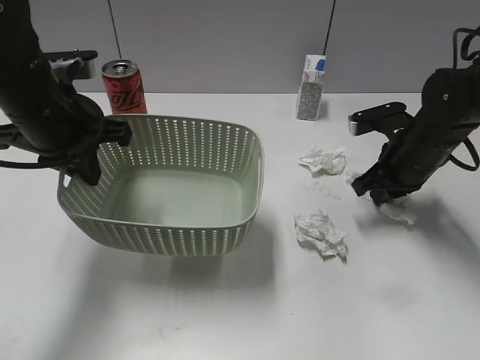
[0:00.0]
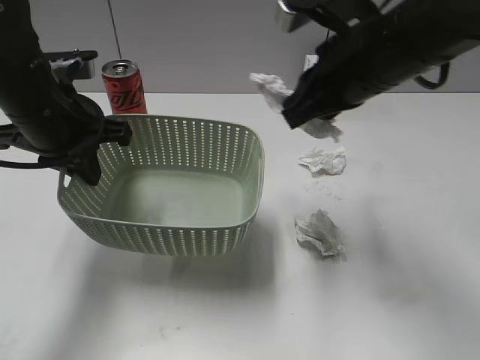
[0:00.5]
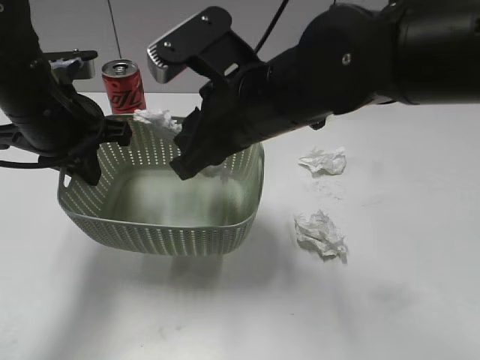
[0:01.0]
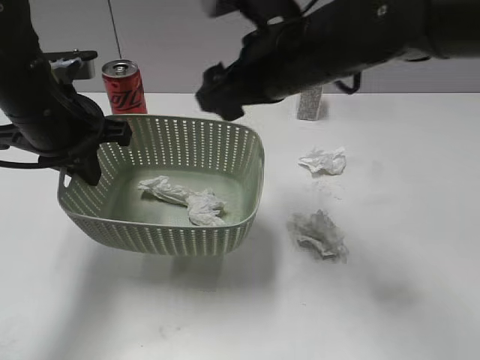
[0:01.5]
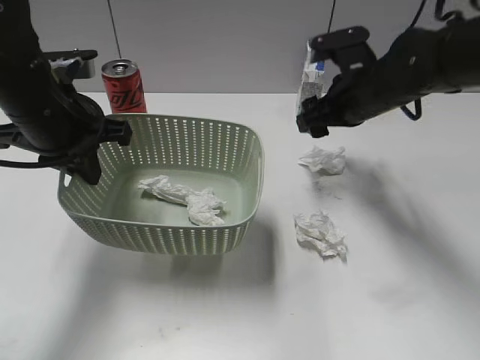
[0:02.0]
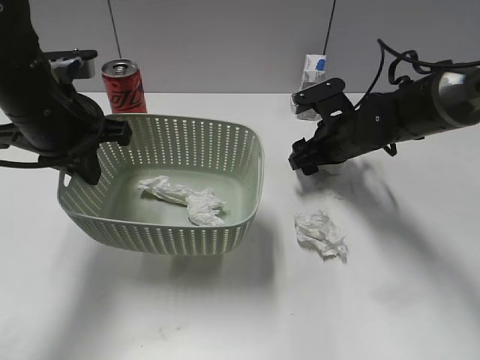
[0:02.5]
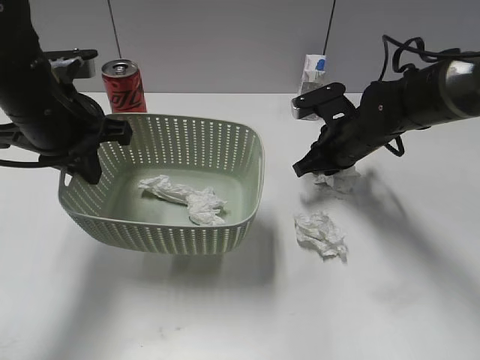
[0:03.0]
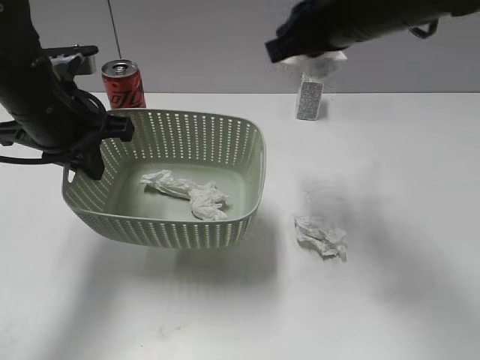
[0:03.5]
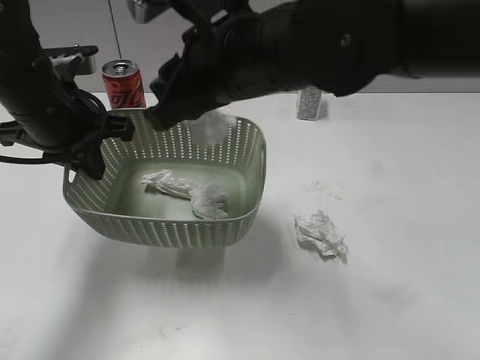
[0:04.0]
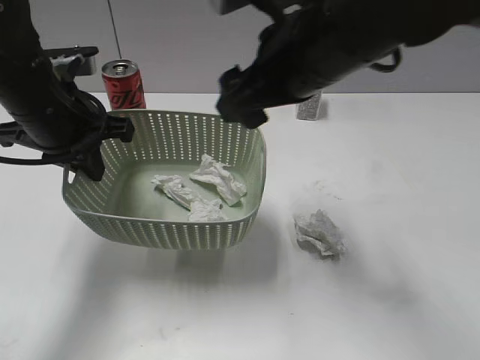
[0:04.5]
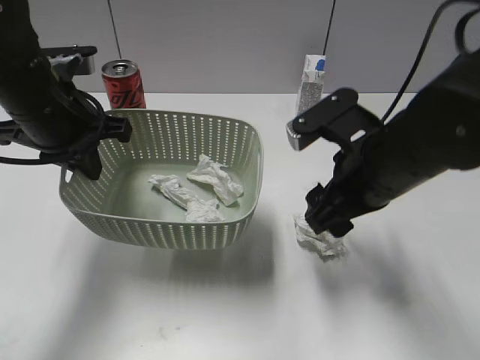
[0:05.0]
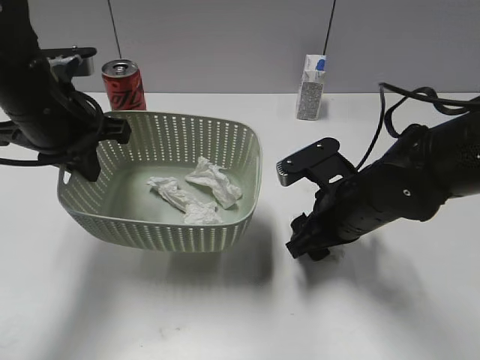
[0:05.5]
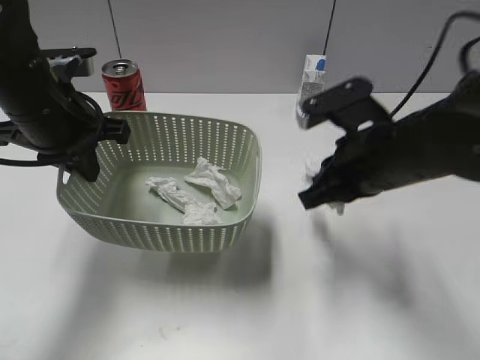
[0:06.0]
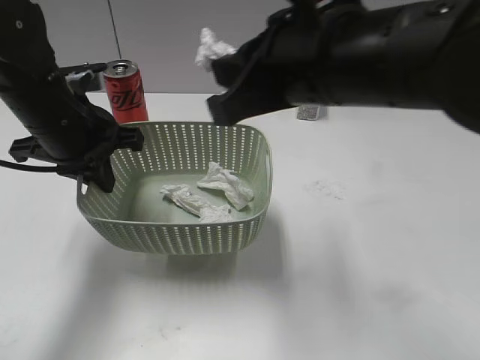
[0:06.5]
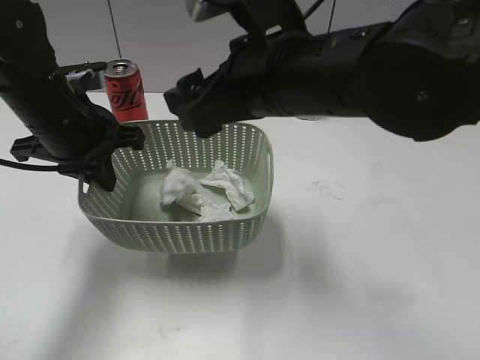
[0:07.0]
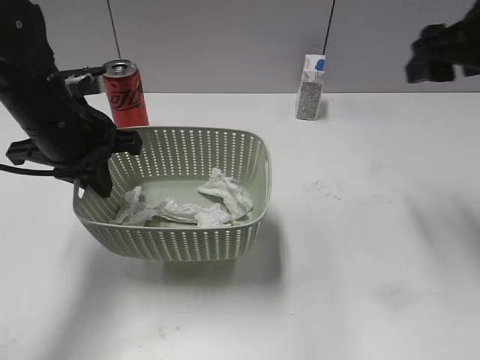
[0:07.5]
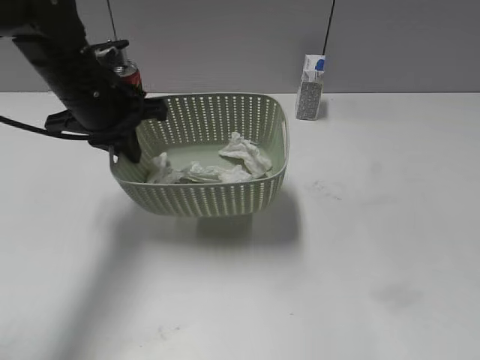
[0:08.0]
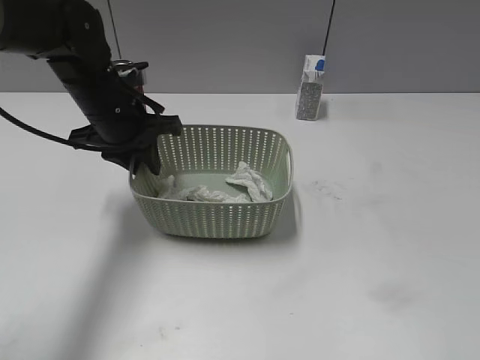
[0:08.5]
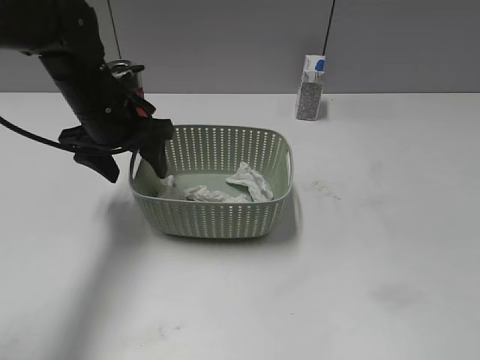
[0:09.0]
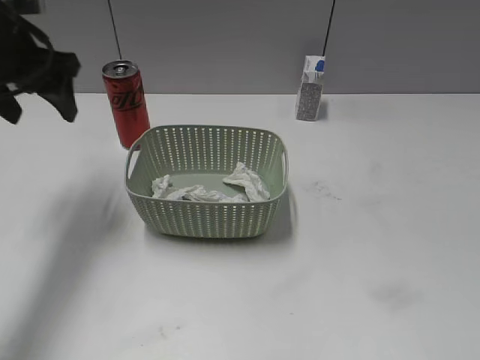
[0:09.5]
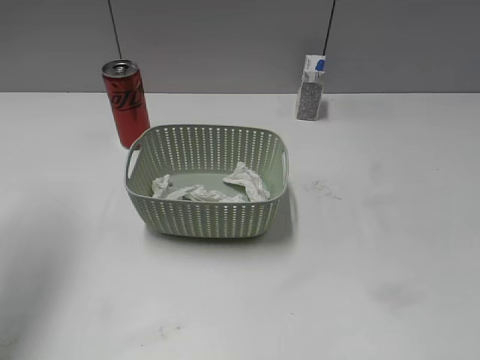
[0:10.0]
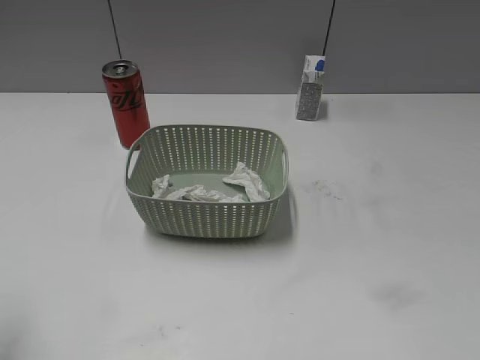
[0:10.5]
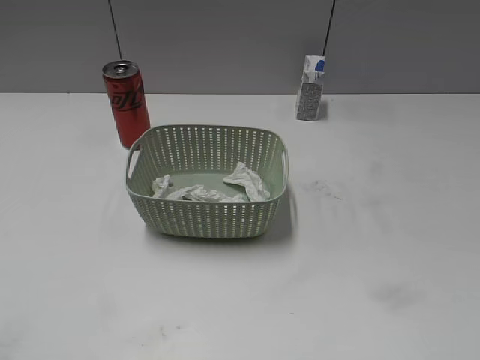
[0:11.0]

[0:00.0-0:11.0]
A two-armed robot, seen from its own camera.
Step, 0:00.0 to 0:01.0: Place the waste paper in the basket with right gripper.
Step, 0:01.5 to 0:03.0: Grasp the waste paper with right gripper.
Step, 0:03.5 to 0:04.0: Place the waste paper in the basket with right gripper.
Step, 0:04.5 to 0:05.5: Grasp the waste paper with right gripper.
Step, 0:06.0 to 0:07.0: Place the waste paper in the basket with right gripper.
Step, 0:07.5 to 0:08.5: Place the basket on the table with left gripper.
0:00.0 to 0:02.0: The right gripper travels to the left and back again, roughly 20 cm each way, and opens.
0:02.0 to 0:03.5: The right gripper heads upward and backward, covering about 15 cm, and closes.
0:03.5 to 0:05.5: The right gripper moves downward, roughly 20 cm, and opens.
0:05.5 to 0:07.5: The right gripper is displaced upward and to the right by about 25 cm, and closes, then opens again.
0:07.5 to 0:09.0: The right gripper goes approximately 30 cm backward; the left gripper goes approximately 5 cm forward, and opens its fingers.
0:09.0 to 0:11.0: The left gripper moves backward and to the left, some 35 cm.

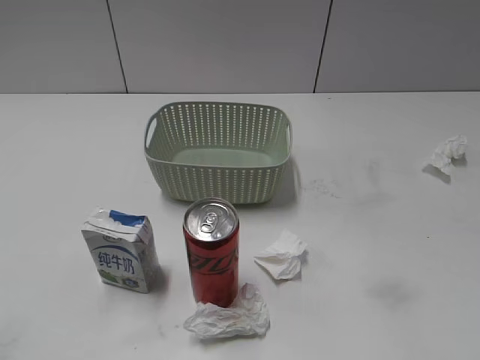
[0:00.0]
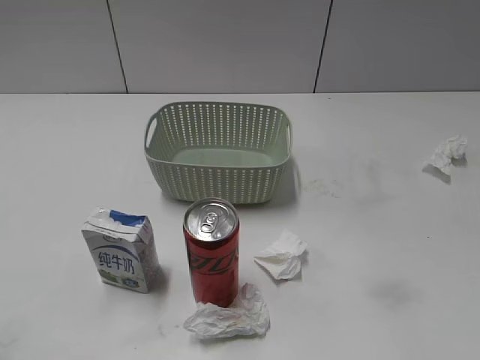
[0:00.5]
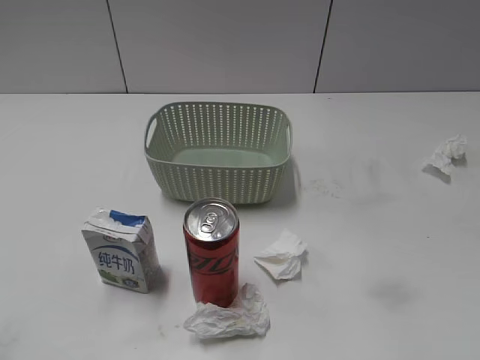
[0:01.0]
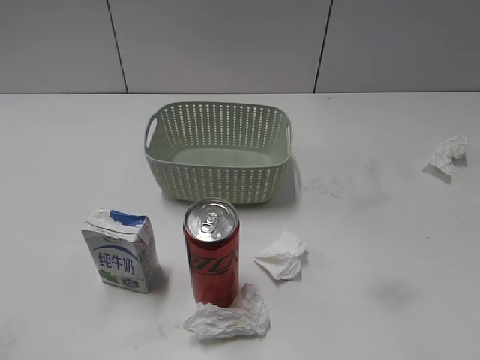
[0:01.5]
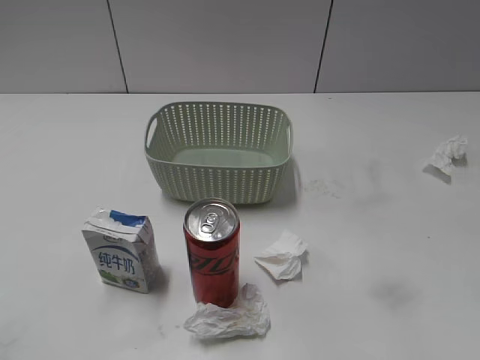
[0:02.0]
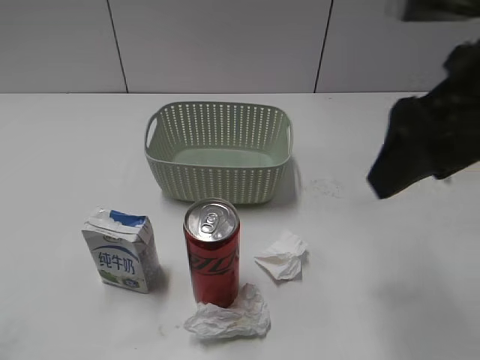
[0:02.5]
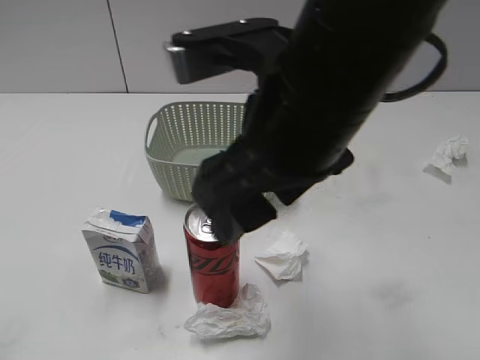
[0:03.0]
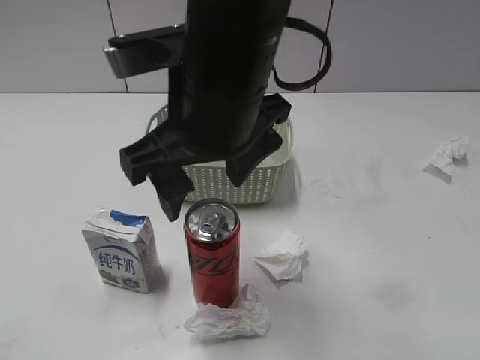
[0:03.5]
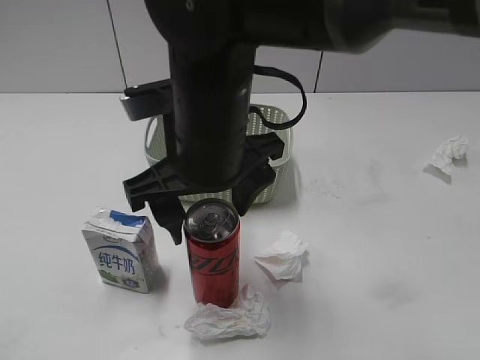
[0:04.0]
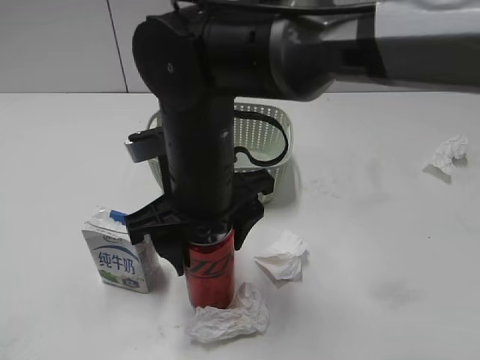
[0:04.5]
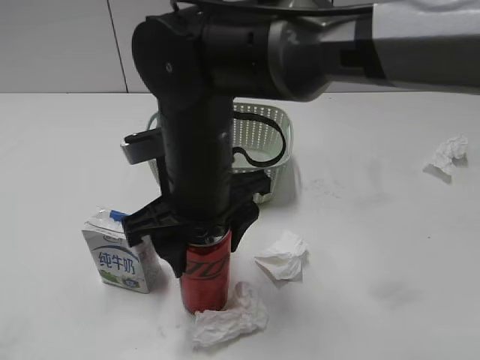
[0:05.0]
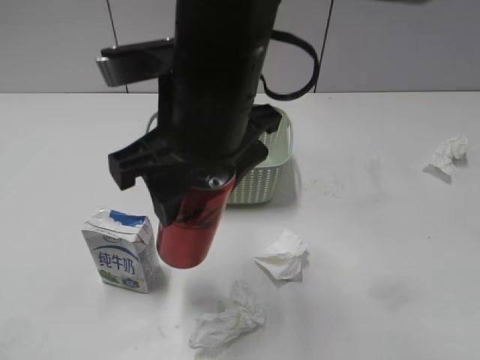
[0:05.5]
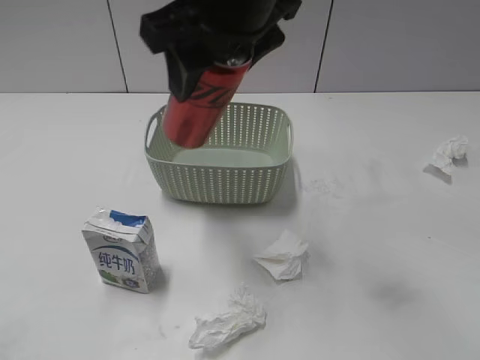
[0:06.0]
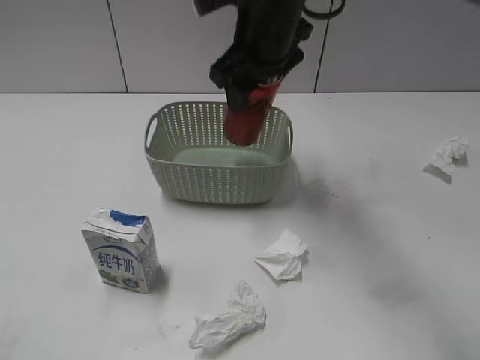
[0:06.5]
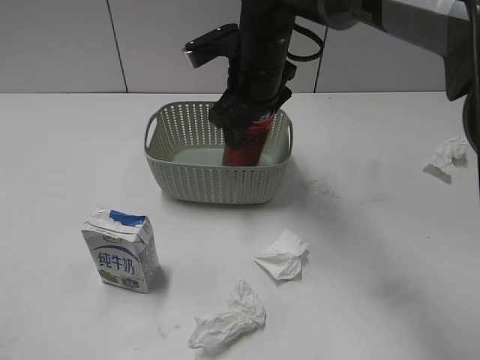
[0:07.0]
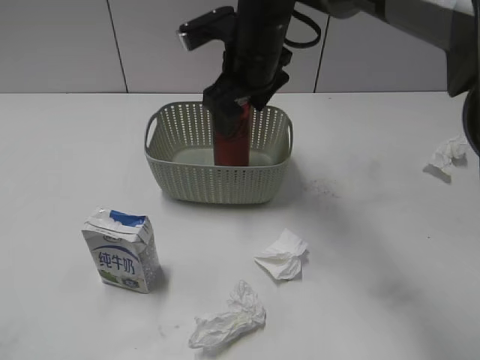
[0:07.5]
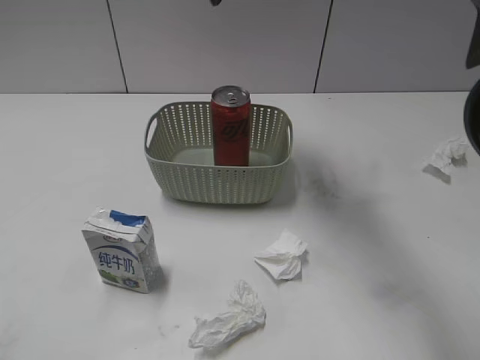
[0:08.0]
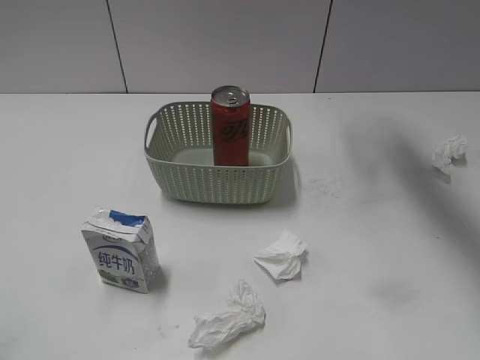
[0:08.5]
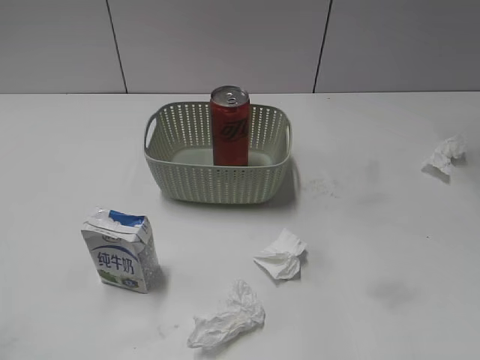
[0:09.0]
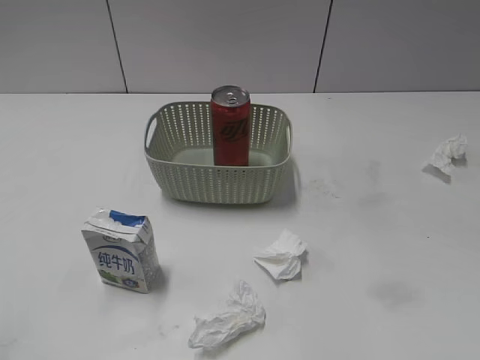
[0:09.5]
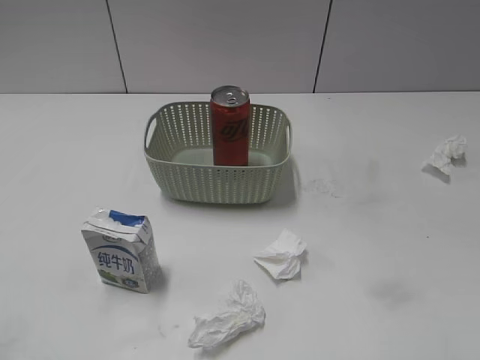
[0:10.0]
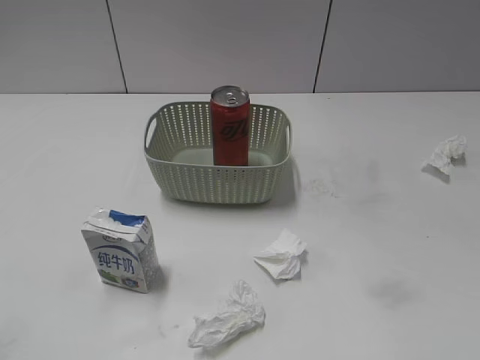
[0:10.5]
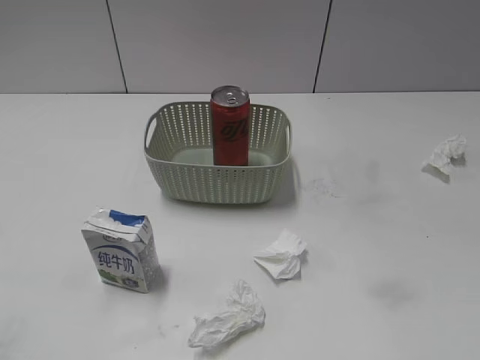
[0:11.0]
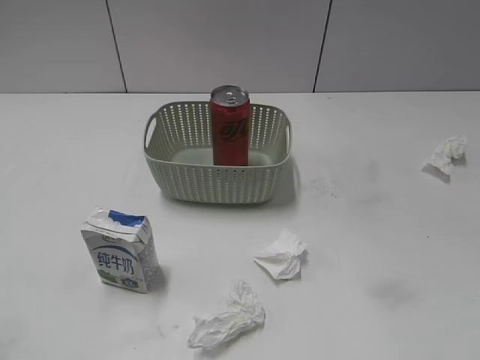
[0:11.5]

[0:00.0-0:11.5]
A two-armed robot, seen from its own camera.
Step, 0:02.5 to 0:04.5: Grasp the cola can with right gripper.
Step, 0:05.0 to 0:07.5: Place the cola can in the basket with right gripper.
0:02.0 to 0:04.0: The right gripper goes roughly 35 cm to the left and downward, and opens up.
0:04.0 to 0:06.0: The right gripper heads upward and forward, covering approximately 10 cm, and closes.
0:06.0 to 0:07.5: The right gripper travels downward and forward by roughly 15 cm, and opens.
0:07.5 to 0:09.5: The right gripper is displaced to the right, upward and backward by about 35 cm.
